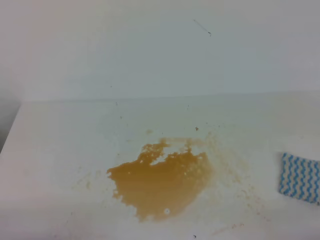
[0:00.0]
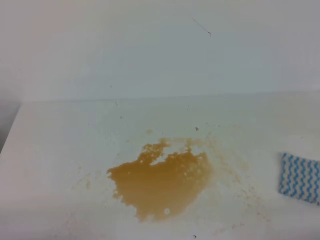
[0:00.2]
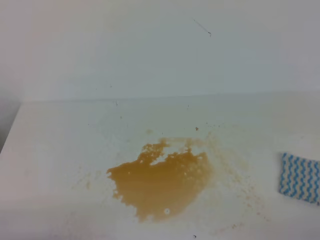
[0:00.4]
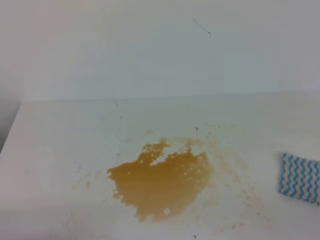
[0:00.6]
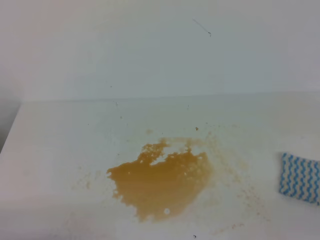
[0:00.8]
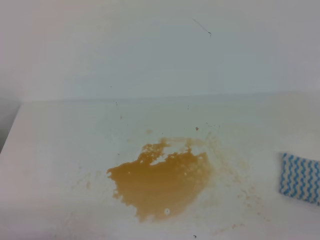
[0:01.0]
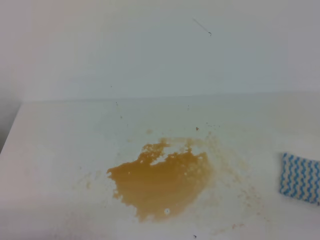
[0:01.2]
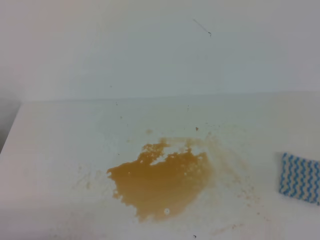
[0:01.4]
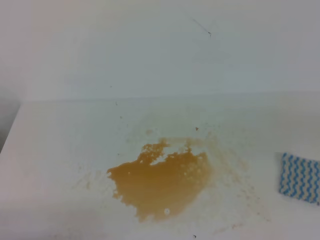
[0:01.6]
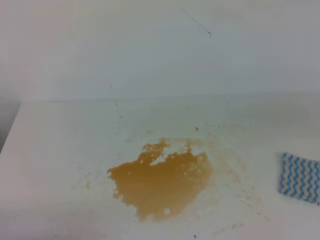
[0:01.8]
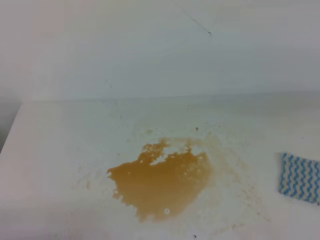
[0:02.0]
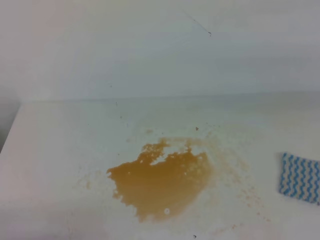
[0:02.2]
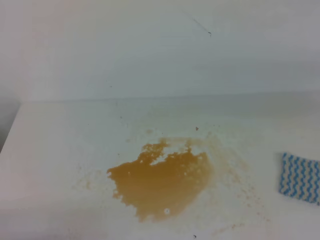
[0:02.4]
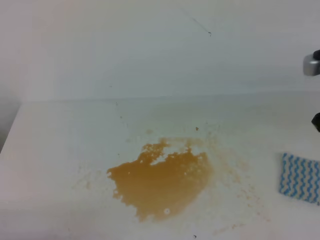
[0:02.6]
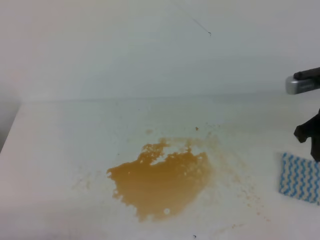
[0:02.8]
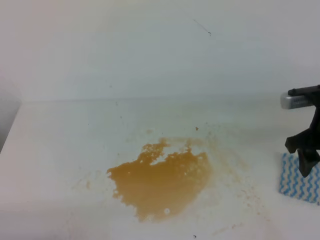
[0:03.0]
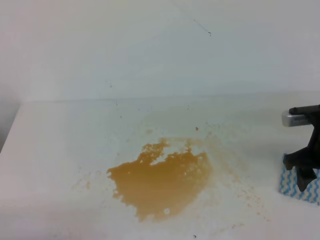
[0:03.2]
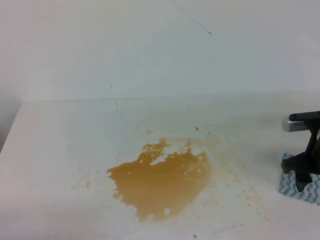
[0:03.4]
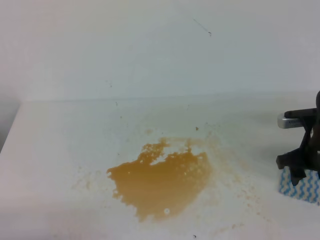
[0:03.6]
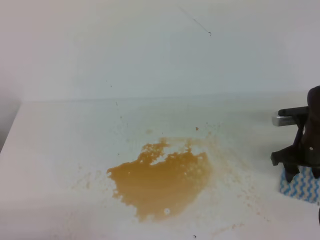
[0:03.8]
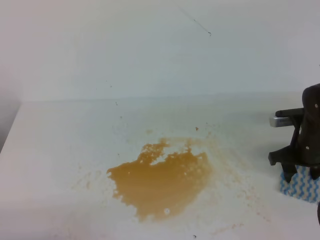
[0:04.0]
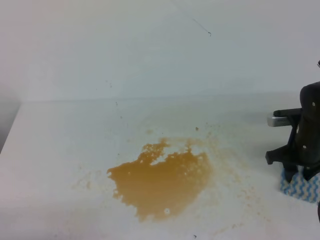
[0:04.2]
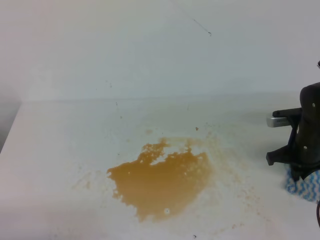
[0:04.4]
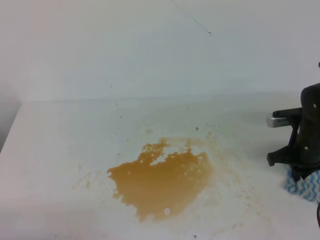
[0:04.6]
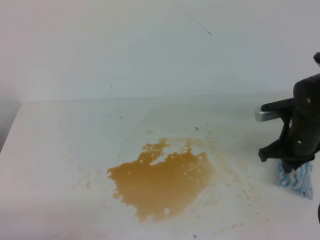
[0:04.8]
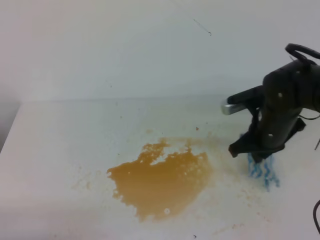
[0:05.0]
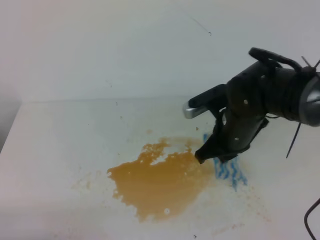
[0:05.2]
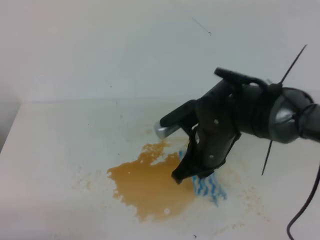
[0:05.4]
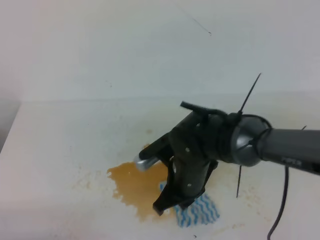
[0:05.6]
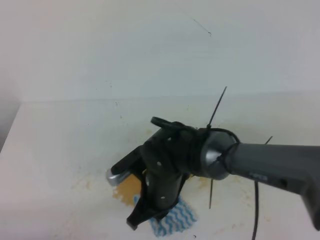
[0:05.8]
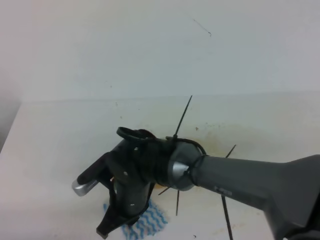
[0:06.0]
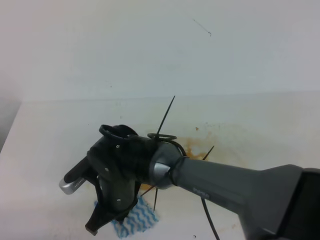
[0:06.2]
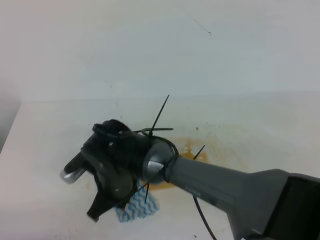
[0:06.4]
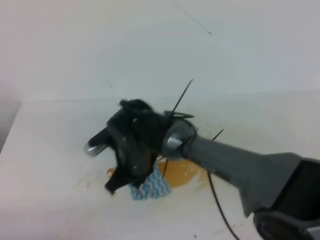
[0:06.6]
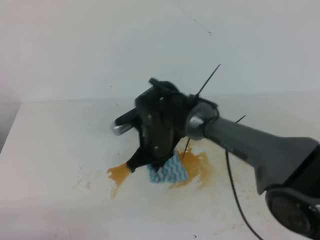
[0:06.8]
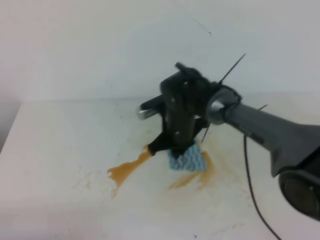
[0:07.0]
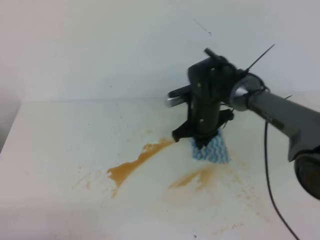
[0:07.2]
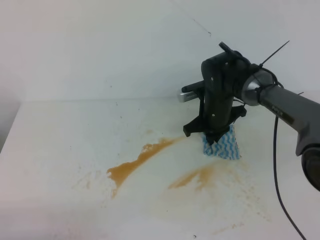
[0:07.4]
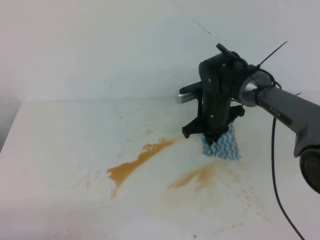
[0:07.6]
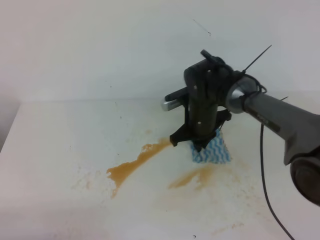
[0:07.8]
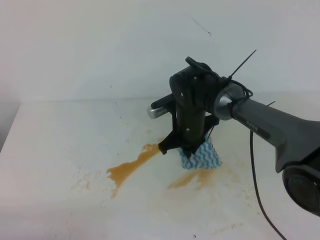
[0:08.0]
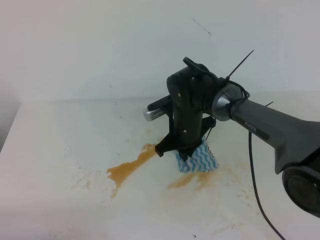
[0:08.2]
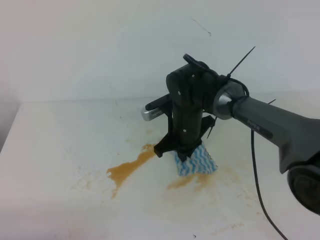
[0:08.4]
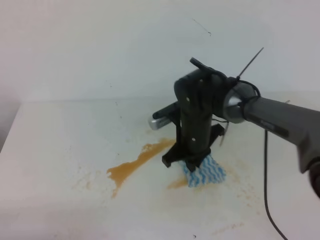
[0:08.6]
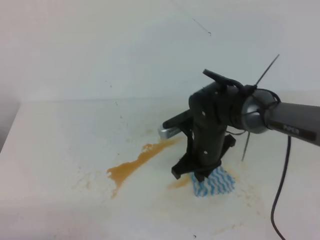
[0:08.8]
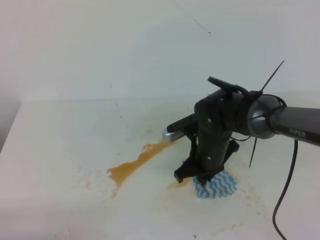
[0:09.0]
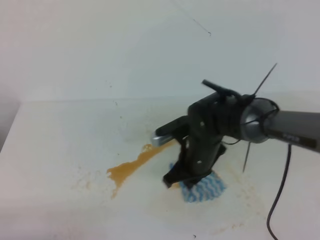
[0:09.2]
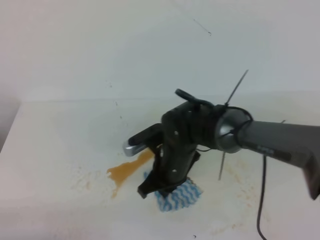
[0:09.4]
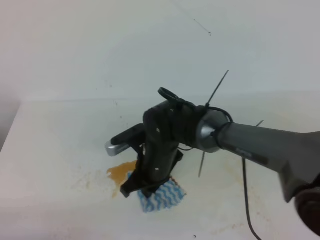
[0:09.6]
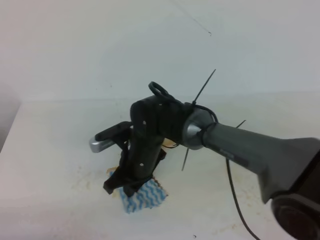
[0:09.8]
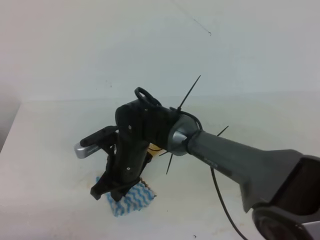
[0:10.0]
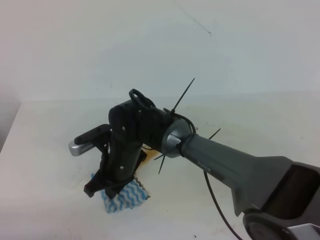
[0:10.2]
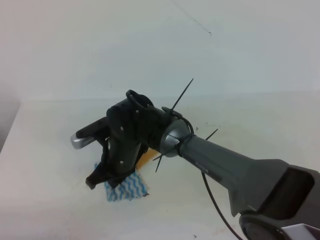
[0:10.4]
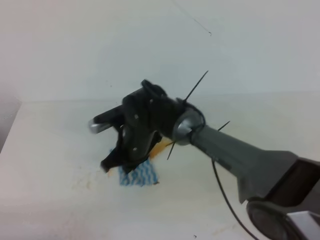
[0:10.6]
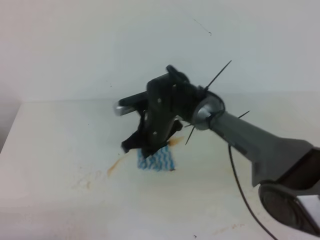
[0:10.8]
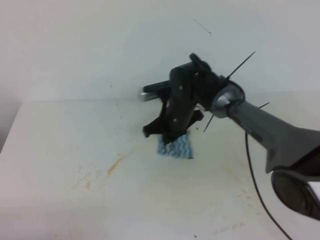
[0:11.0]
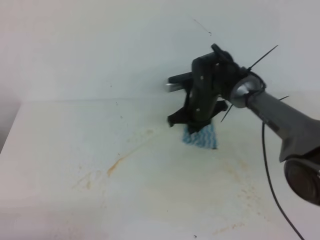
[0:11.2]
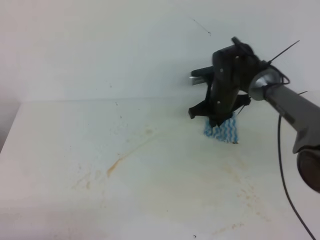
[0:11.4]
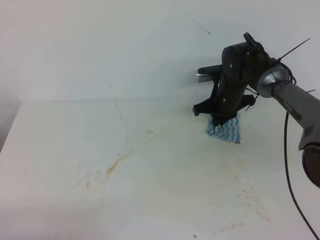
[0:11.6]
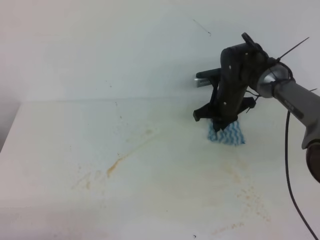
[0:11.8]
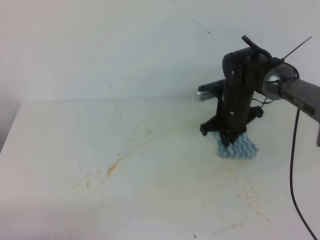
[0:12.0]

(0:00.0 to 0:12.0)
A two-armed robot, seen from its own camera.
0:01.6 - 0:03.0: The right gripper is displaced forward and downward by approximately 30 cm, and opens.
0:03.0 - 0:04.4: The right gripper travels downward by some 10 cm, and closes its fingers.
0:04.4 - 0:06.0: The right gripper heads to the left, covering approximately 30 cm.
0:06.0 - 0:07.6: The right gripper goes some 25 cm forward and to the right.
0:07.6 - 0:09.0: The right gripper goes roughly 10 cm backward.
0:09.0 - 0:10.4: The right gripper moves to the left, roughly 15 cm.
0:10.4 - 0:12.0: The right gripper heads to the right and forward, covering approximately 25 cm.

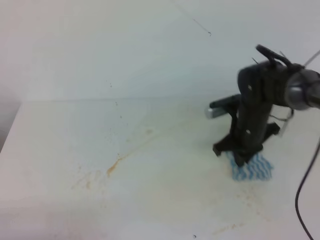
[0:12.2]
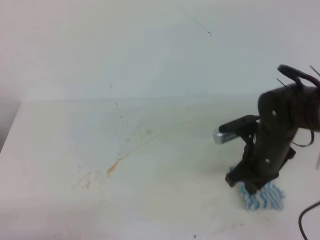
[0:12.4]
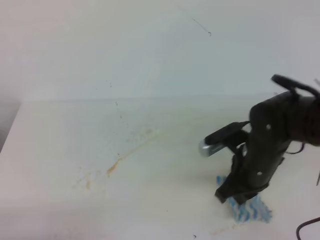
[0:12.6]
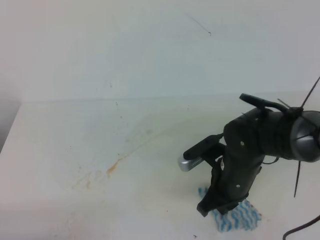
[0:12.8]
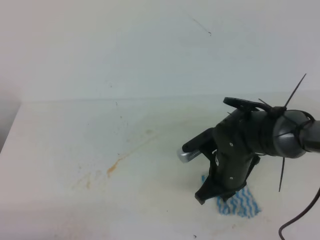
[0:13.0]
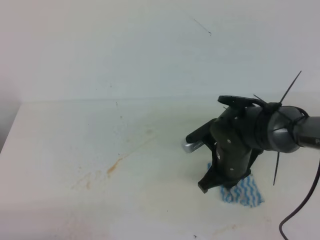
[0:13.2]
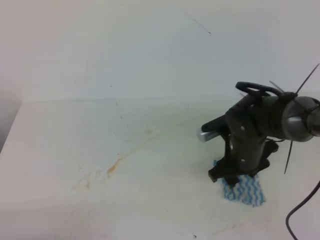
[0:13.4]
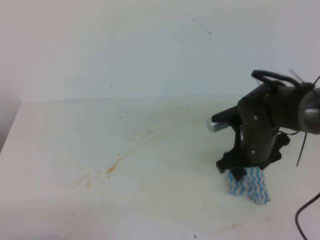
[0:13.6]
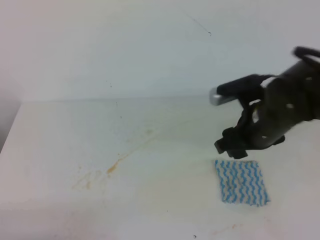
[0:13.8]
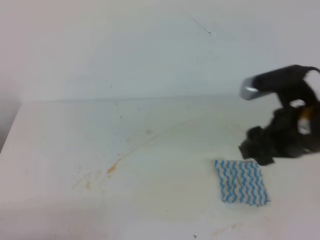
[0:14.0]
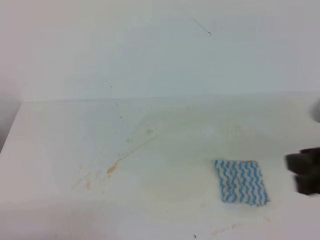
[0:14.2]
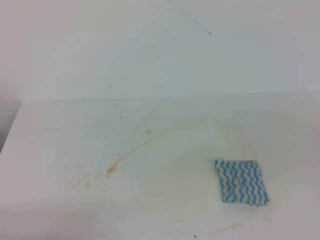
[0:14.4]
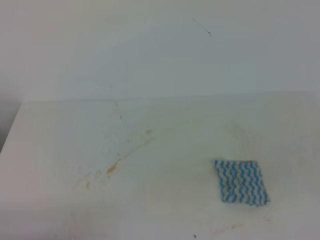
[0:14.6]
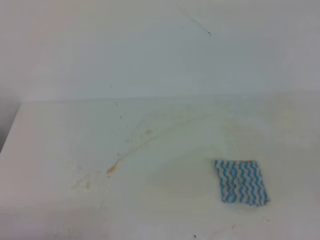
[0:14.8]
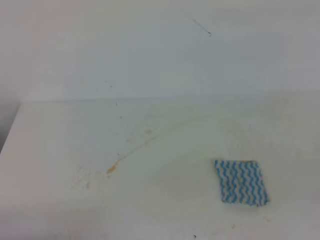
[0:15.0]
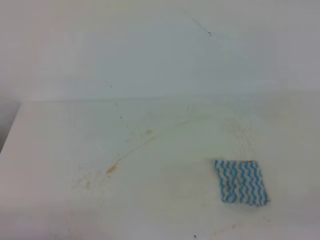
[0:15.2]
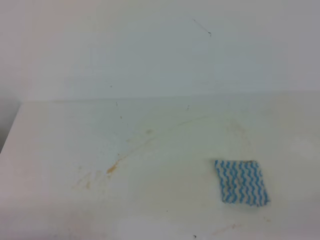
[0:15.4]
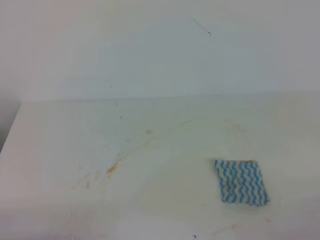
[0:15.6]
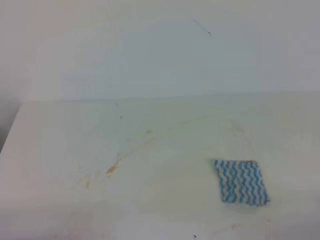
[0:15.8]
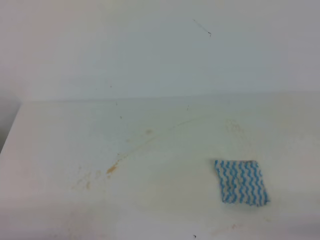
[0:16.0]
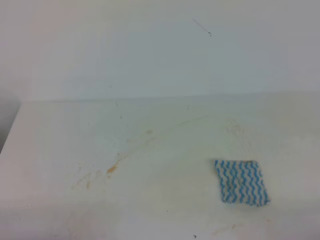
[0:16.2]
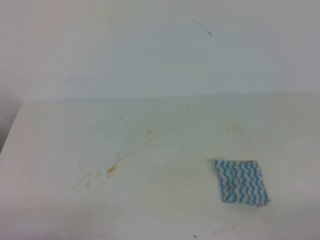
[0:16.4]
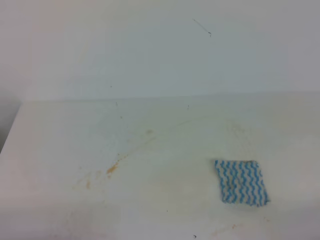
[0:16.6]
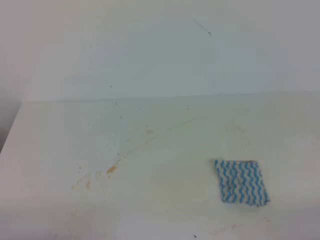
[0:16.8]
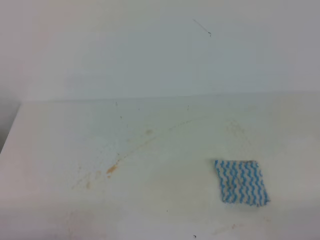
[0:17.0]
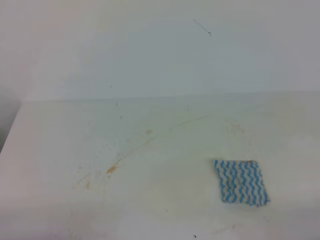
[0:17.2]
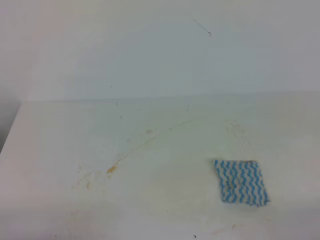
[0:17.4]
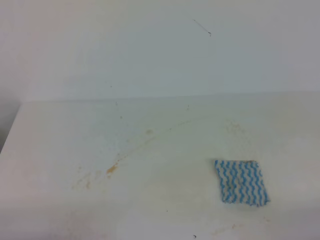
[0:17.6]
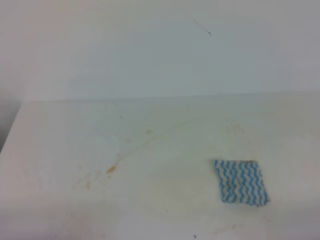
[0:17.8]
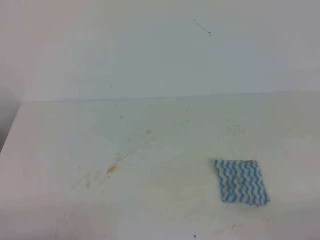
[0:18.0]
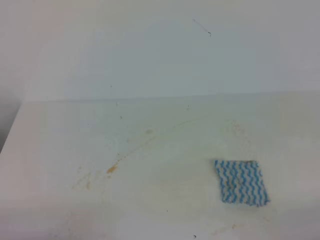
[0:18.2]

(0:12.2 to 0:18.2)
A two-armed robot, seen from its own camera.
0:12.2 - 0:13.8: The right gripper shifts approximately 10 cm backward and upward, and opens up.
0:13.8 - 0:15.2: The right gripper goes approximately 30 cm backward and to the right, and closes up.
0:16.6 - 0:18.2: Both grippers stay about where they are.

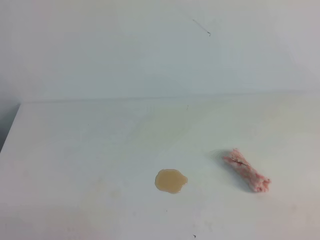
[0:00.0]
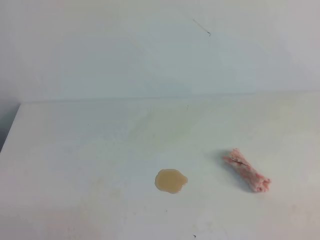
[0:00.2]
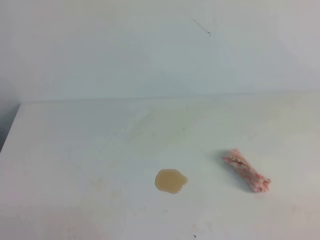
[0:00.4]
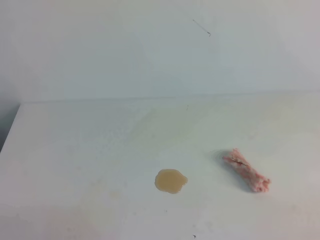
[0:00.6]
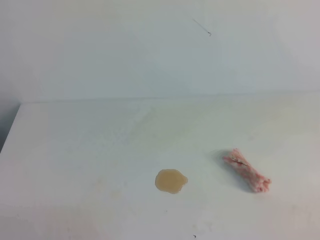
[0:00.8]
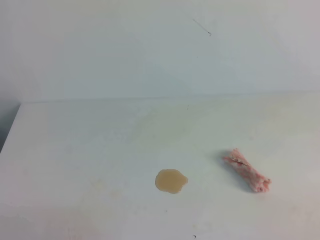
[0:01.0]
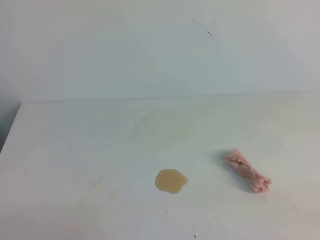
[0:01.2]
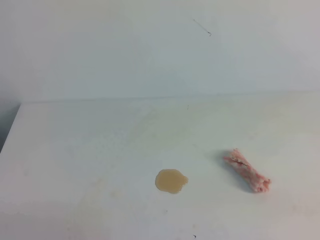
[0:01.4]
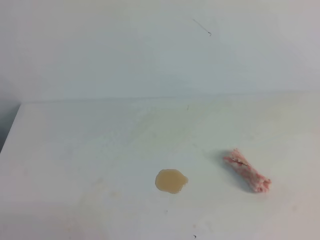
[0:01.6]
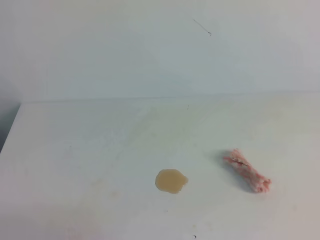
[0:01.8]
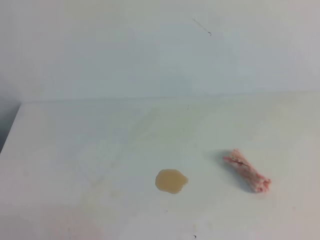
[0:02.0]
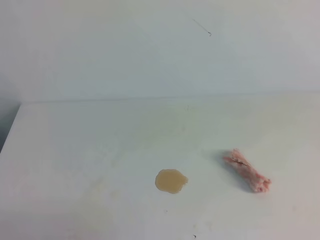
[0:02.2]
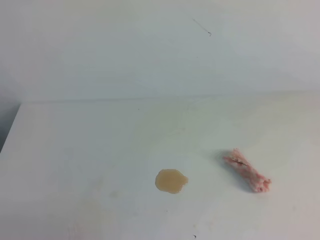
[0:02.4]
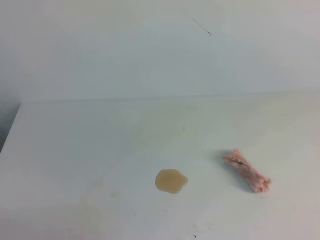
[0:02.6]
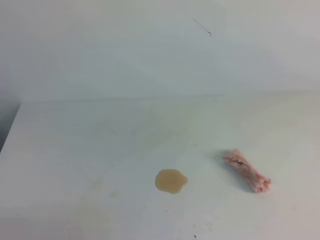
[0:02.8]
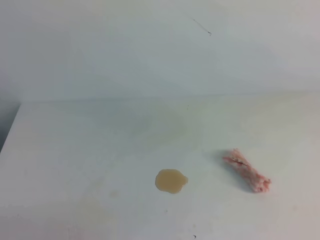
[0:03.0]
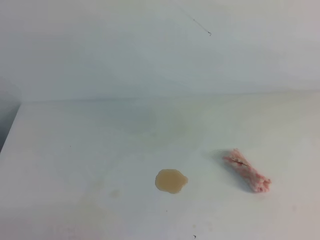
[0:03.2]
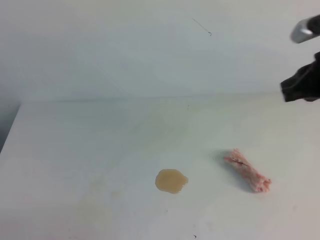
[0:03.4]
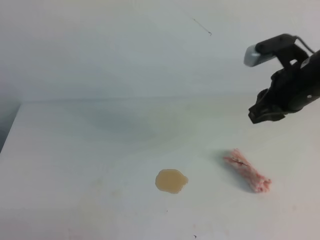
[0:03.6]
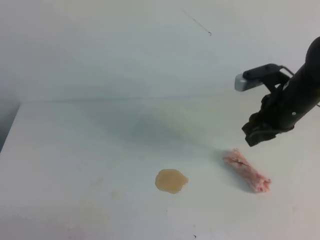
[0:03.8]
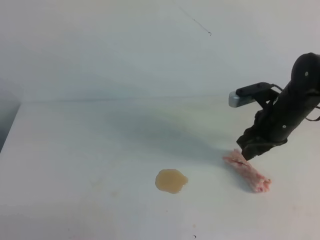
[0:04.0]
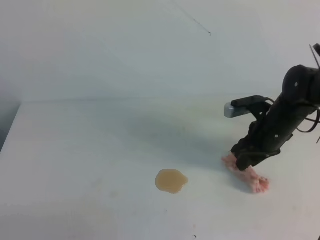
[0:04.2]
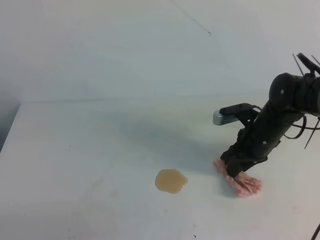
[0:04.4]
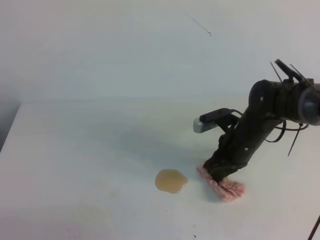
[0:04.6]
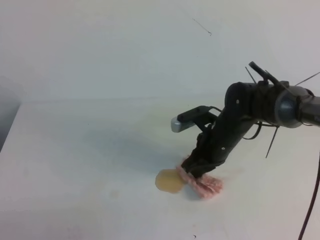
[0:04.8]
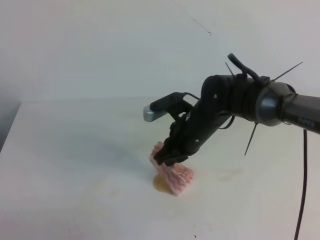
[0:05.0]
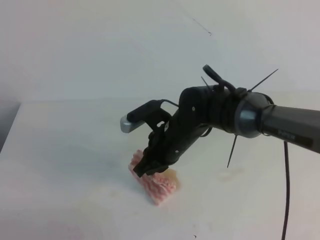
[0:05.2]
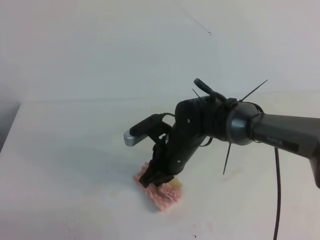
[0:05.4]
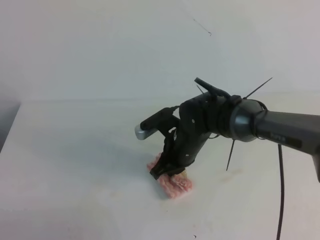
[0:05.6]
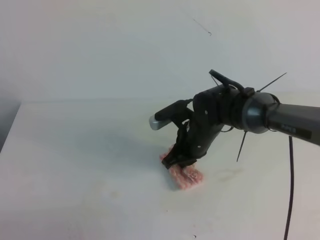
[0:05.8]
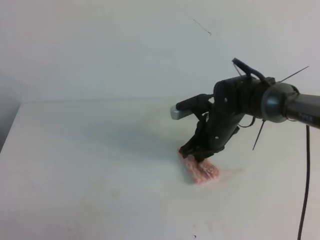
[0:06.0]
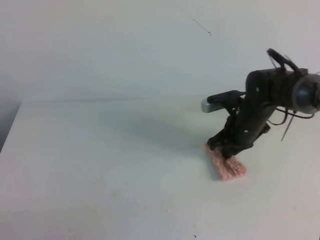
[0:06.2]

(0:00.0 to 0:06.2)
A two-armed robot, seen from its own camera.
0:03.2 - 0:04.6: The right gripper travels downward, to the left and forward by roughly 30 cm, and opens, then closes once more.
0:04.6 - 0:06.2: The right gripper moves roughly 10 cm to the left and comes back.
